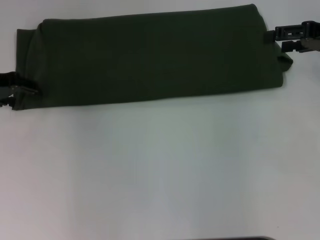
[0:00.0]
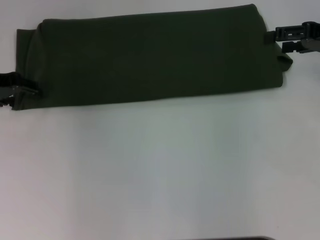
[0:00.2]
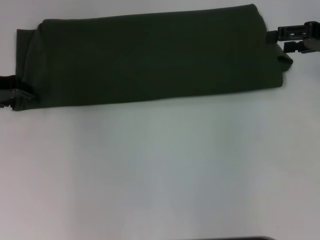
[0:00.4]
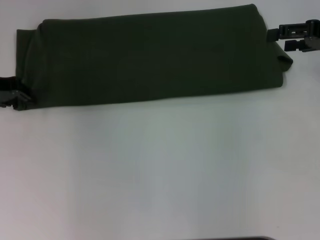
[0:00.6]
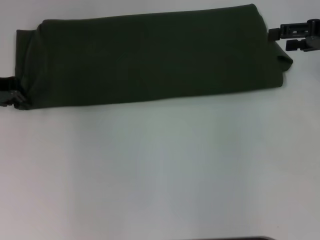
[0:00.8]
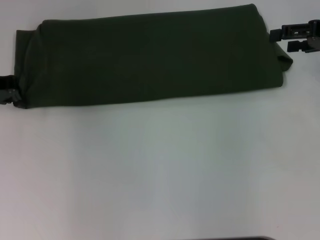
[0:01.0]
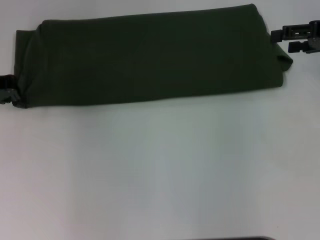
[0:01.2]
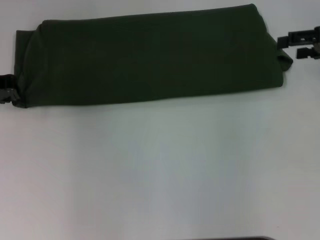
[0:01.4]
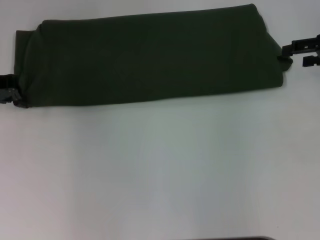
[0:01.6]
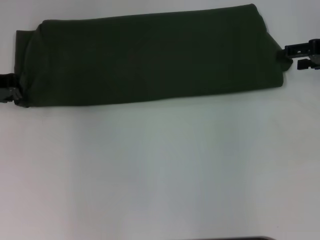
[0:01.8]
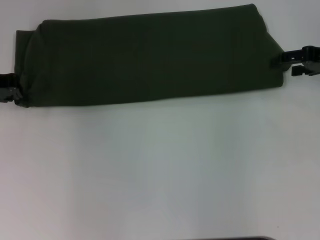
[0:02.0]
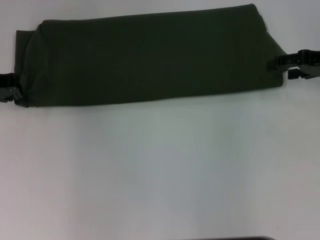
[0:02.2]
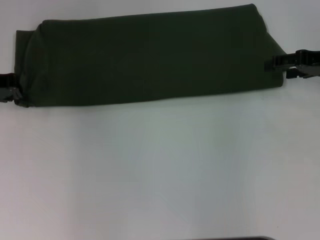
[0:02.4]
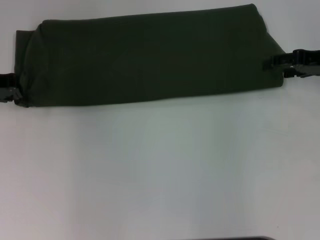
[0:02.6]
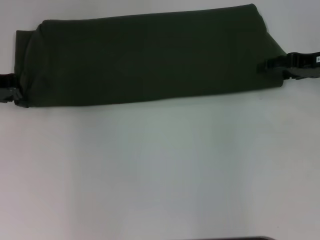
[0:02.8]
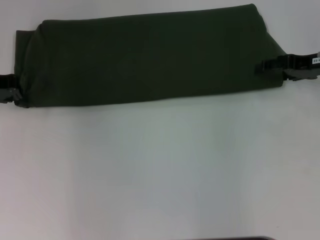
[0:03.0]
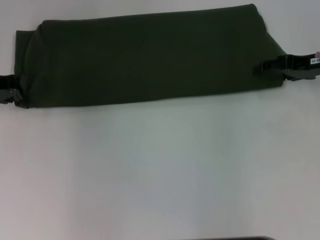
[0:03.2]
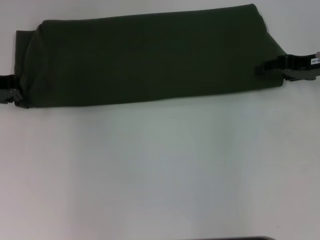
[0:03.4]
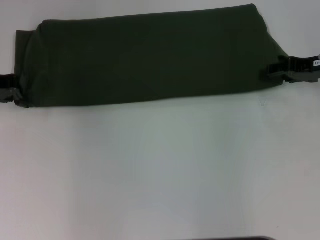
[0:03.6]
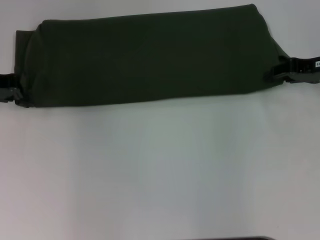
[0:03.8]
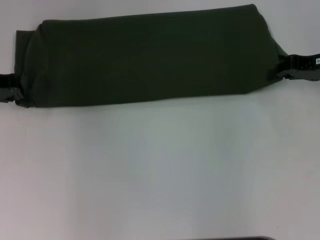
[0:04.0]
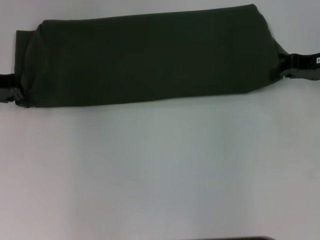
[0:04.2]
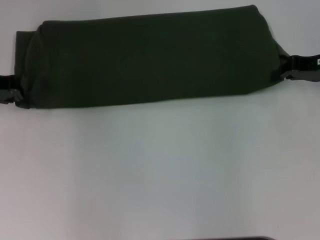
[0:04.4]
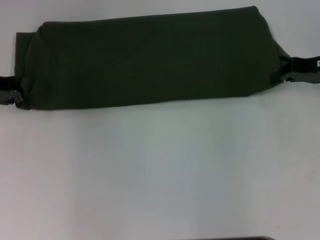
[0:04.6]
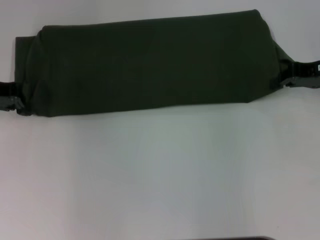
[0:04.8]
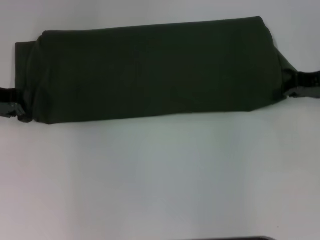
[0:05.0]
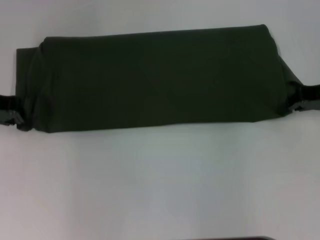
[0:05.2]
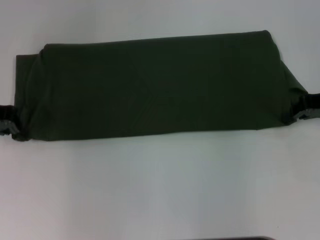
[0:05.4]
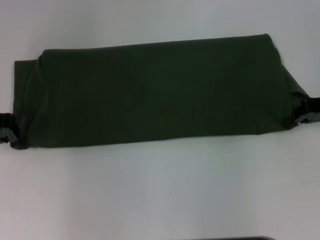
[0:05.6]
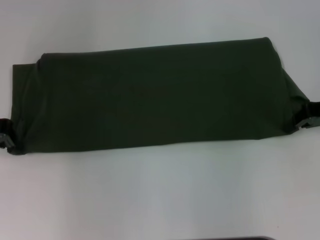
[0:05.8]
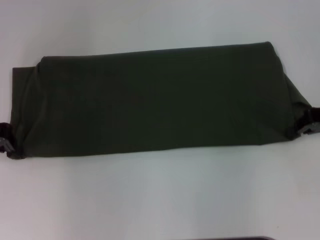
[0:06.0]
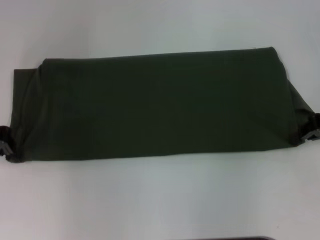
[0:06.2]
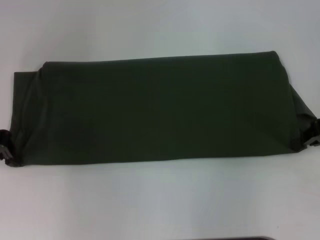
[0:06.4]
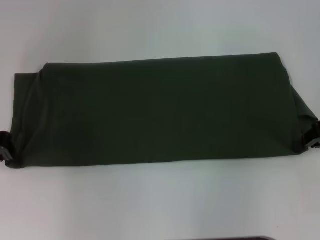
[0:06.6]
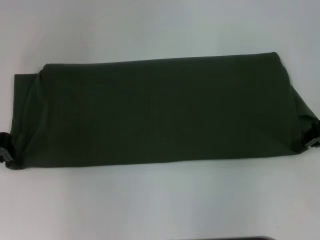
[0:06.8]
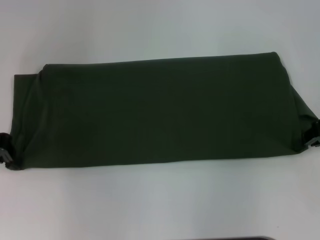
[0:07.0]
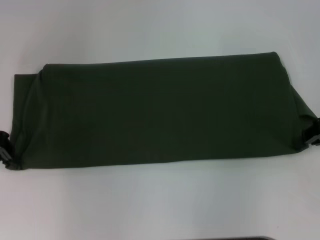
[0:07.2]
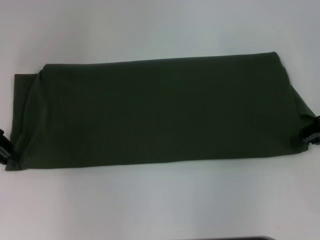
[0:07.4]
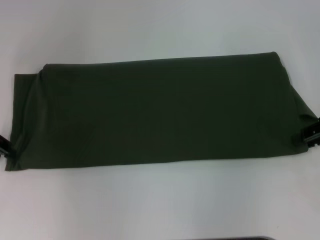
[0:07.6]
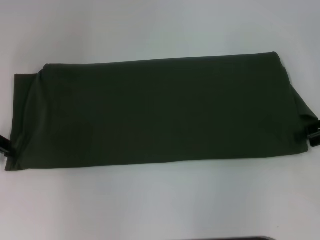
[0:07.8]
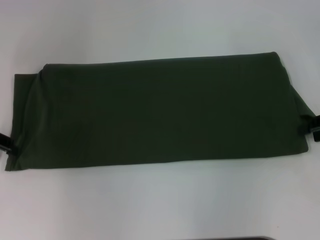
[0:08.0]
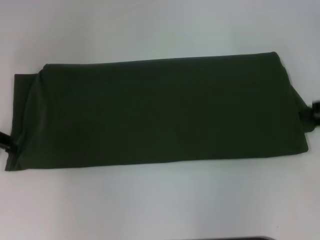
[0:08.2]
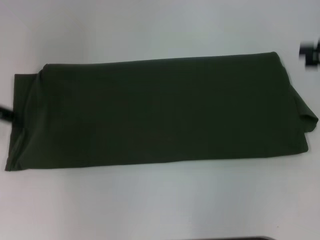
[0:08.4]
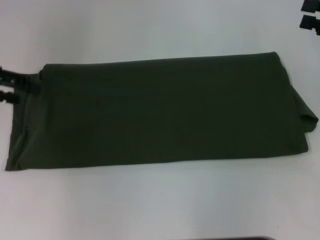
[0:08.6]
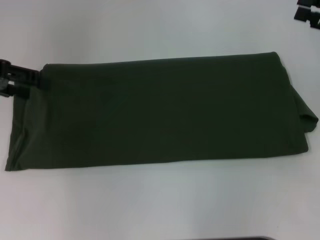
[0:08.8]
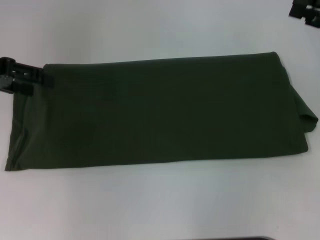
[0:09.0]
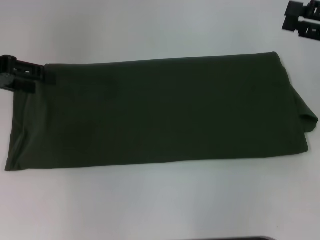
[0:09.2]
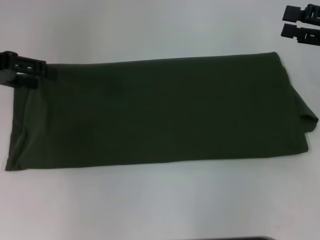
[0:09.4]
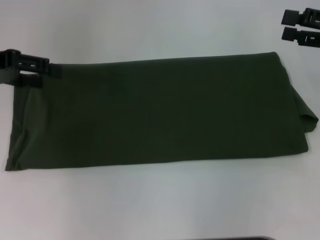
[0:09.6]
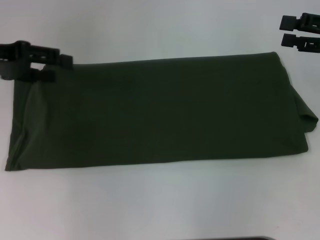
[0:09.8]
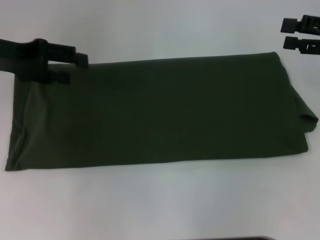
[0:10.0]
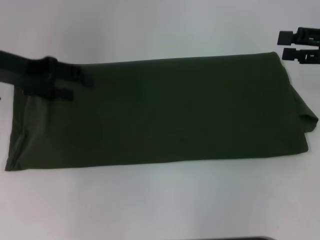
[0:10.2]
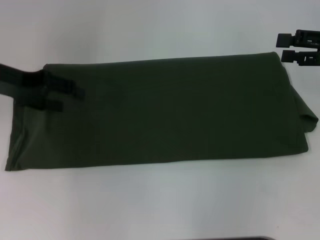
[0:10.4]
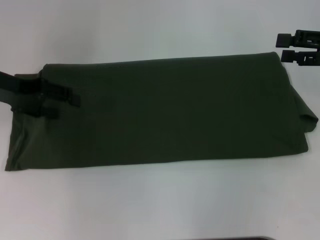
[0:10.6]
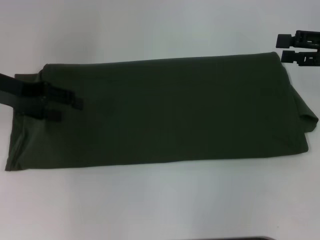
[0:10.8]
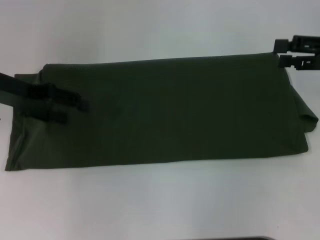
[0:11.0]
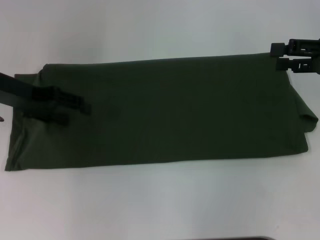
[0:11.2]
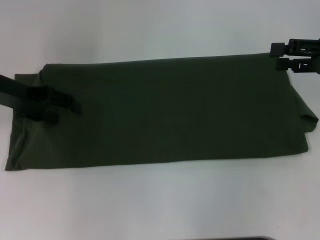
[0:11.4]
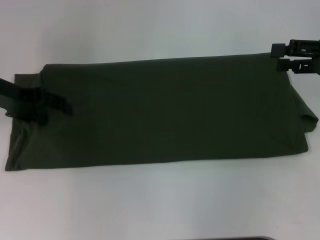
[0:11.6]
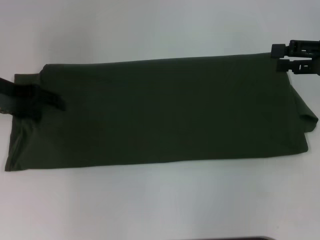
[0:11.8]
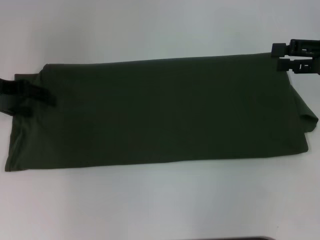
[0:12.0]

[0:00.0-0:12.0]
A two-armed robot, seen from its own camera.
0:00.0 to 0:01.6: The left gripper closes.
0:01.6 to 0:03.0: The right gripper shifts by about 5 cm.
0:03.0 to 0:04.4: The right gripper closes up.
0:04.4 to 0:06.0: The right gripper changes place by about 5 cm.
0:06.0 to 0:07.6: There are only small adjustments of the grippers.
0:07.6 to 0:09.0: The right gripper opens its fingers; the left gripper ends up approximately 5 cm from where it was, and opens up.
0:09.0 to 0:10.4: The left gripper changes place by about 5 cm.
0:10.4 to 0:12.0: The grippers stay close to where they were, moving slightly.

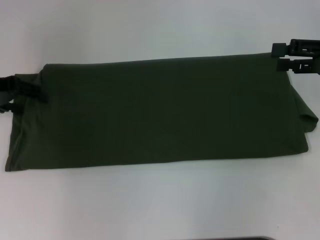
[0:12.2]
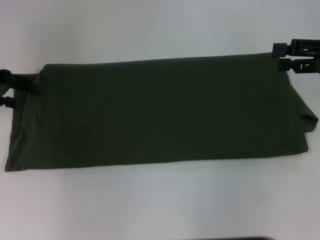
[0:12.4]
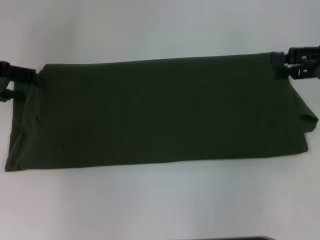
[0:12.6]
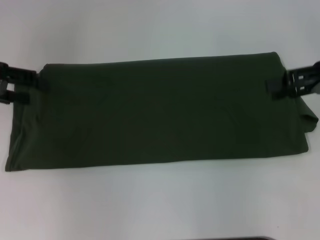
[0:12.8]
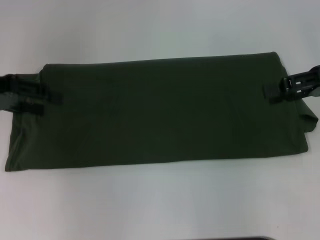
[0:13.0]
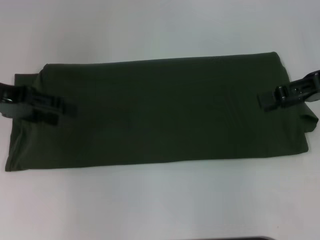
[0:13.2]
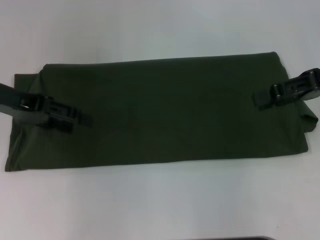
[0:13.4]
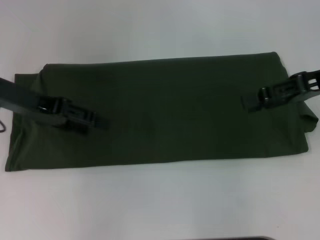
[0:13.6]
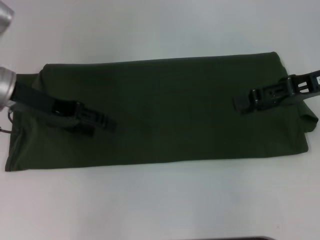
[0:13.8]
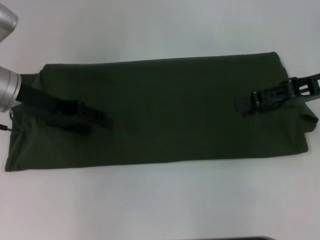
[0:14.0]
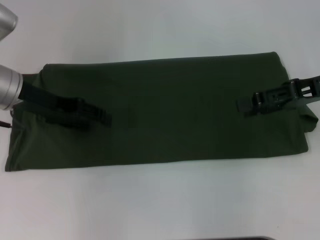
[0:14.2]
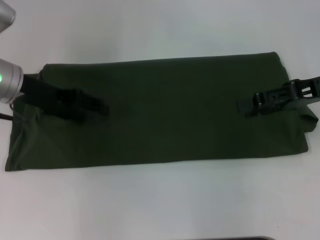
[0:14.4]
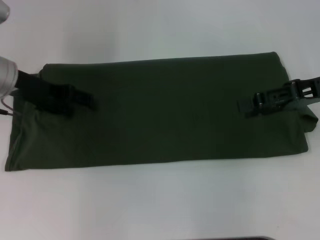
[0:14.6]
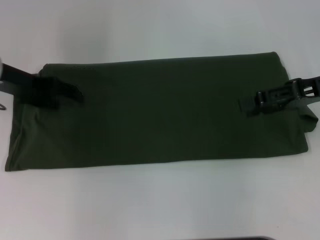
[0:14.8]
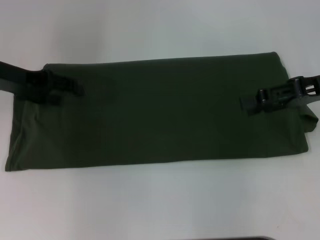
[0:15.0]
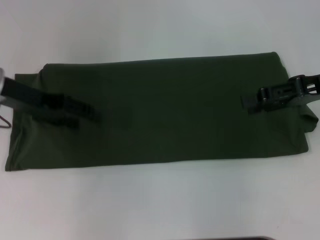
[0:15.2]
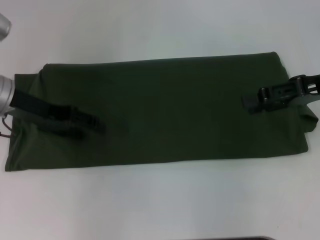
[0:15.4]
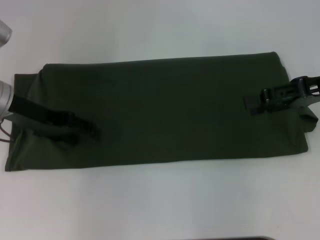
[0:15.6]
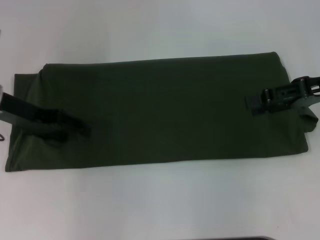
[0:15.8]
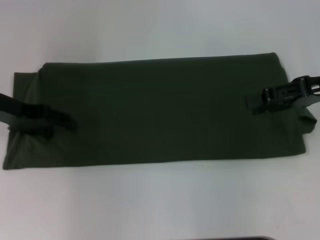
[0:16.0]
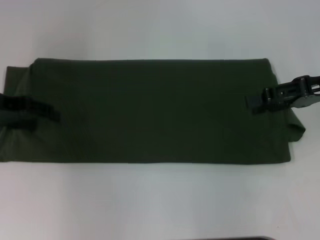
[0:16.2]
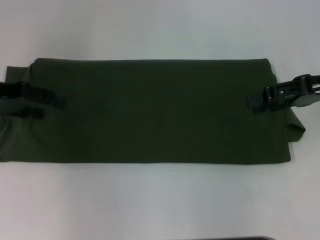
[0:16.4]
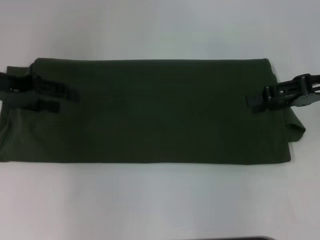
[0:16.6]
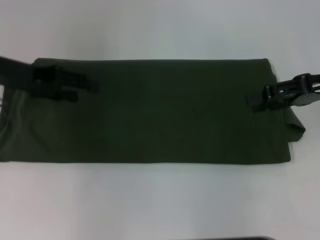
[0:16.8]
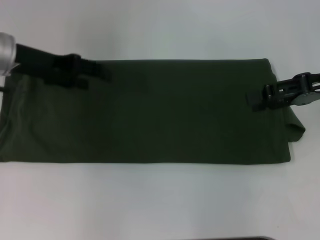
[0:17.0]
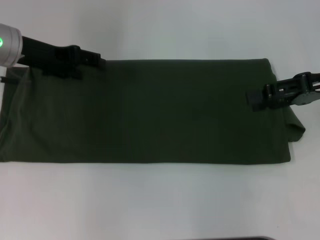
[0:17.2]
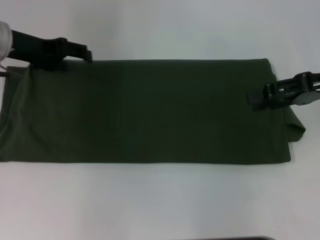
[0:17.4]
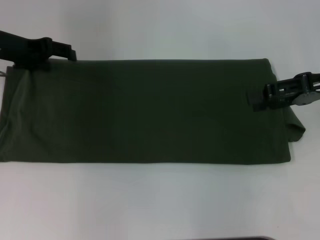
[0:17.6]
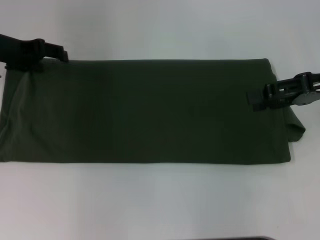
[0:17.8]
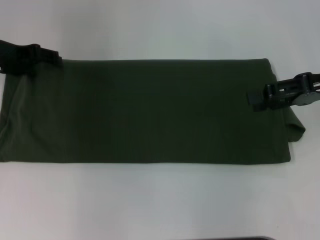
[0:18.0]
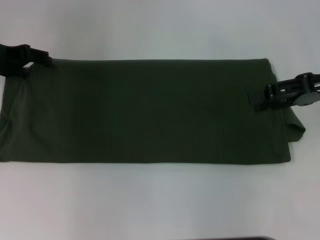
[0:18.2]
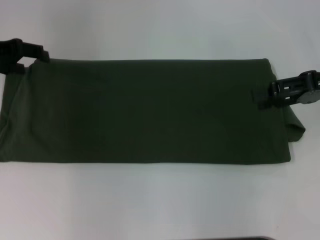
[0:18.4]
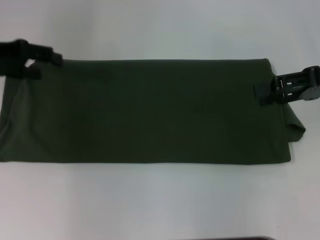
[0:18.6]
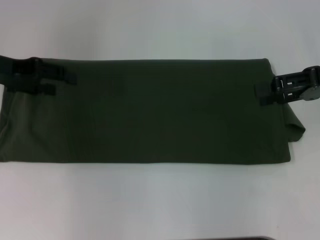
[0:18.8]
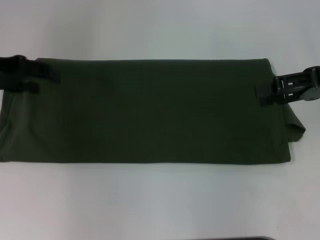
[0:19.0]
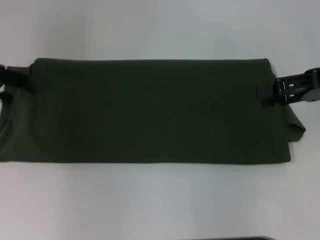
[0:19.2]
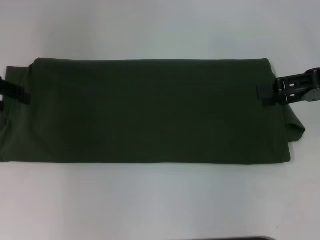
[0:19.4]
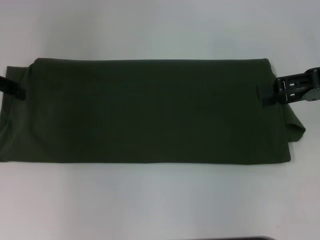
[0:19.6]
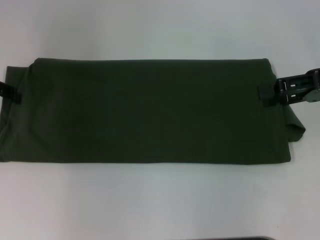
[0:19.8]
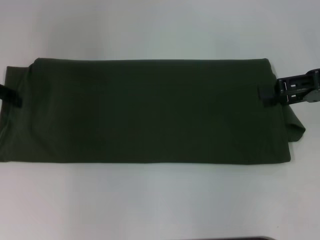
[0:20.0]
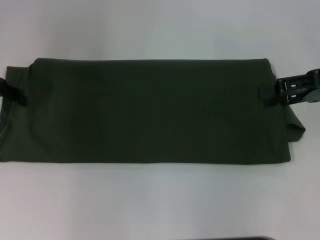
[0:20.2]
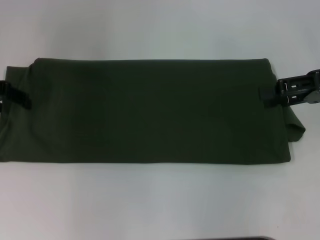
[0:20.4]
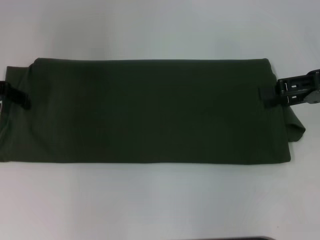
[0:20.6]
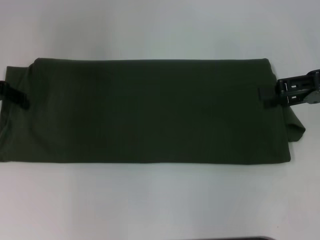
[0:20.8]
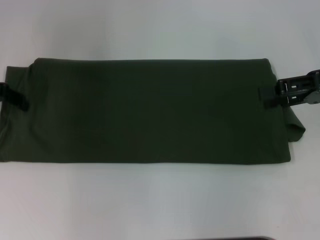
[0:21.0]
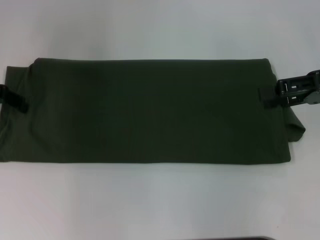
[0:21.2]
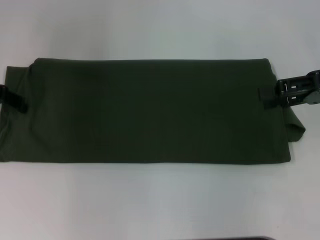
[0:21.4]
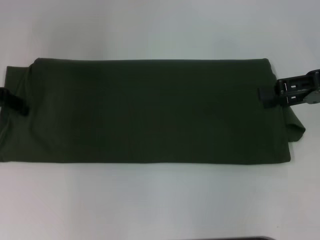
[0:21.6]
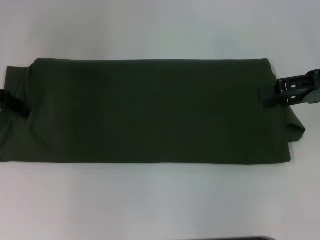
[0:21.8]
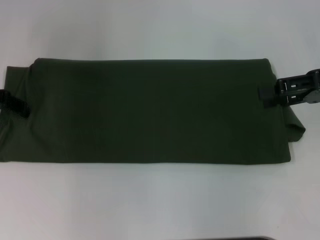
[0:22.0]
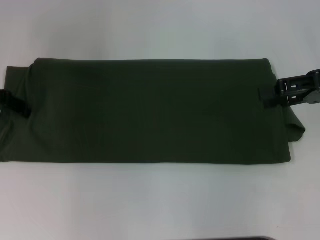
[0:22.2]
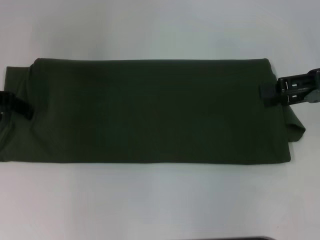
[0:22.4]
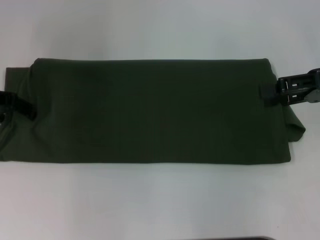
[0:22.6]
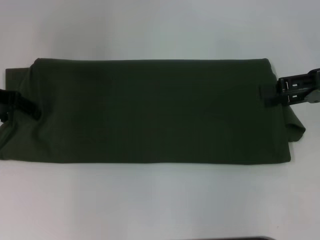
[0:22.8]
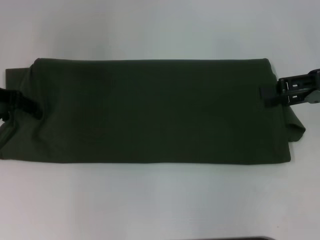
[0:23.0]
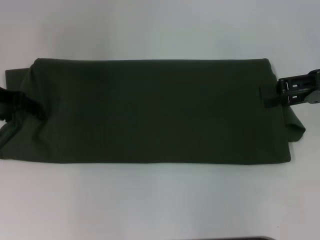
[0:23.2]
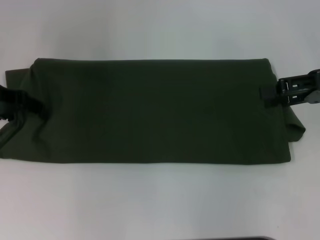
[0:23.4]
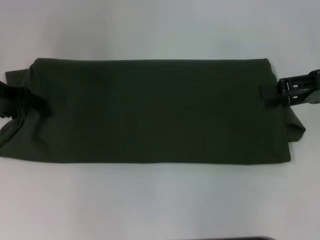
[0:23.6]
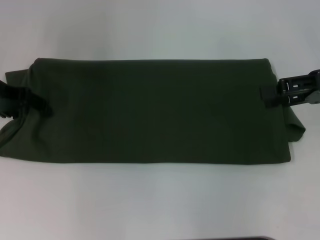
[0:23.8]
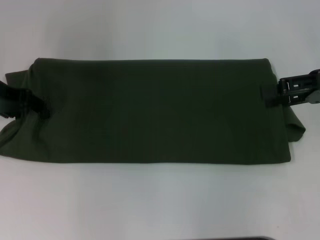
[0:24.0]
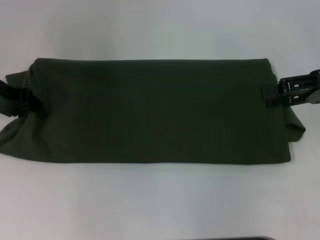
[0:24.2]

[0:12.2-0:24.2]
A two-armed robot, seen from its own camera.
0:12.2 to 0:13.8: The left gripper goes about 10 cm to the right, while the right gripper goes some 5 cm to the left.
0:15.2 to 0:16.6: The grippers stay close to where they were, moving slightly.
0:16.6 to 0:18.2: The left gripper goes roughly 5 cm forward.
0:18.2 to 0:19.8: The left gripper moves approximately 5 cm.
0:21.2 to 0:22.6: Neither gripper changes place.
0:22.6 to 0:24.2: The grippers make only small movements.
